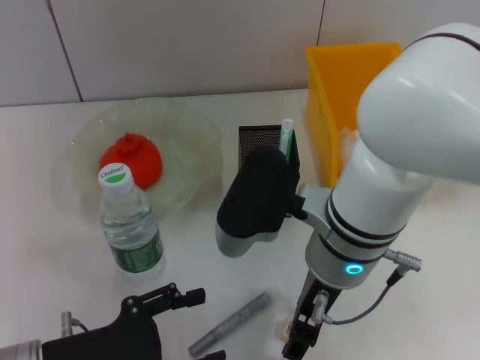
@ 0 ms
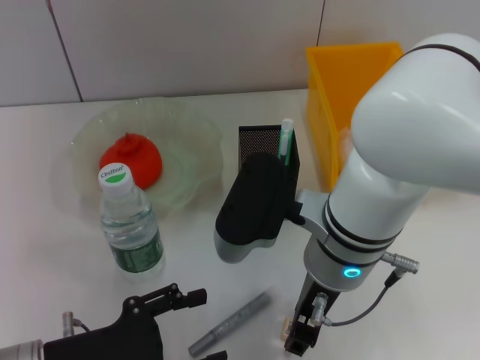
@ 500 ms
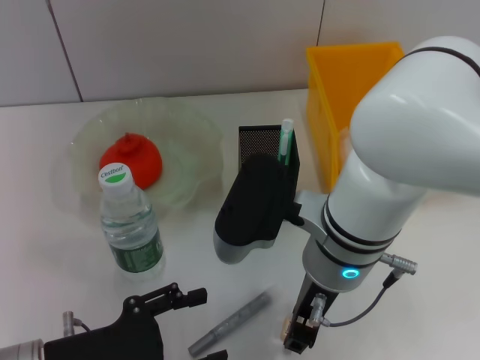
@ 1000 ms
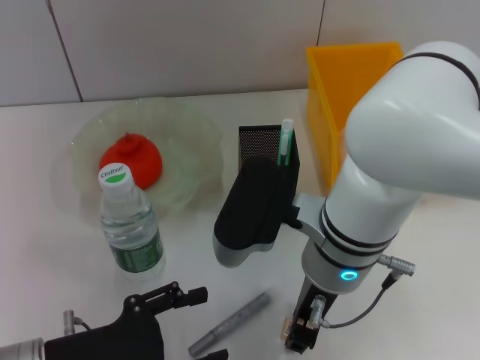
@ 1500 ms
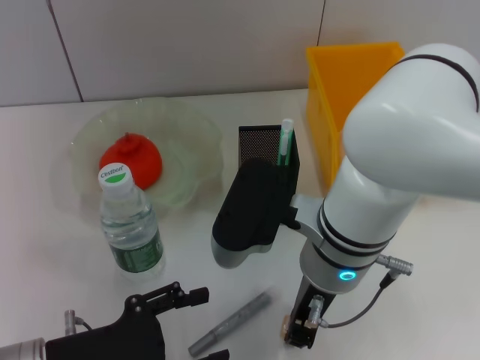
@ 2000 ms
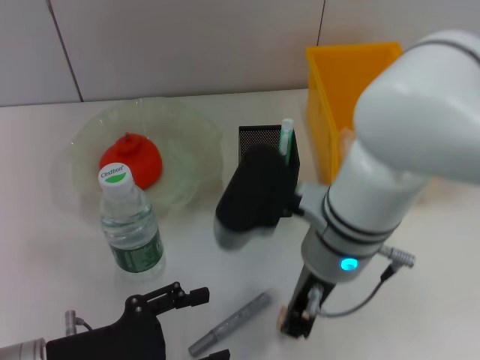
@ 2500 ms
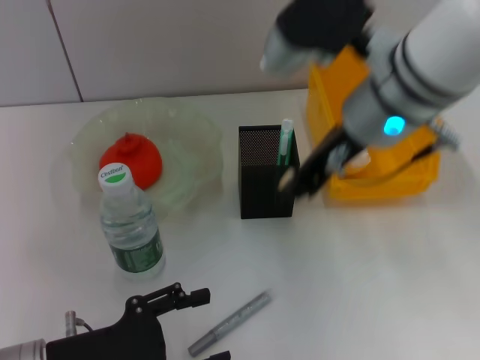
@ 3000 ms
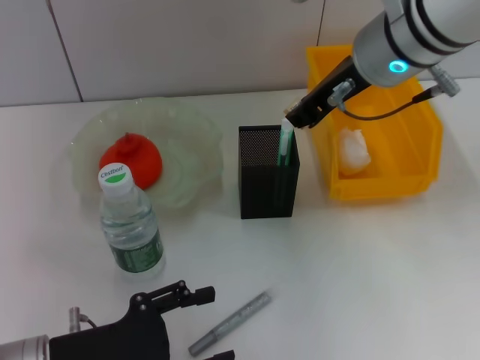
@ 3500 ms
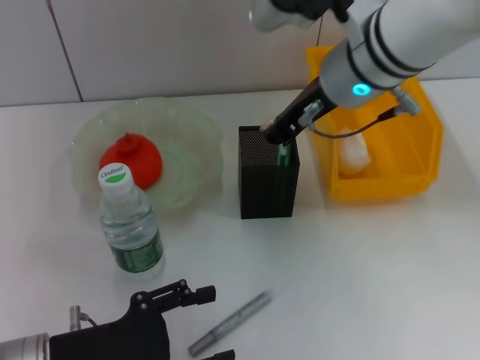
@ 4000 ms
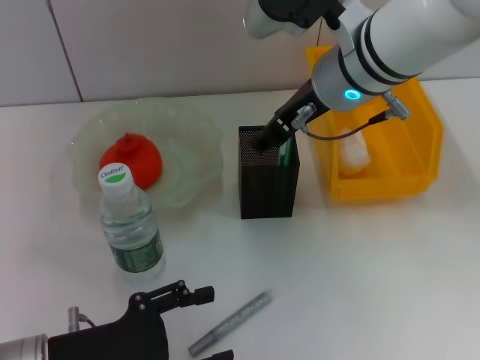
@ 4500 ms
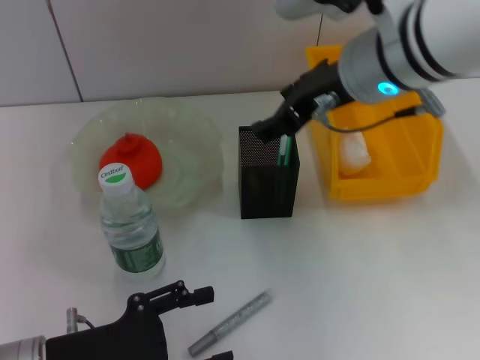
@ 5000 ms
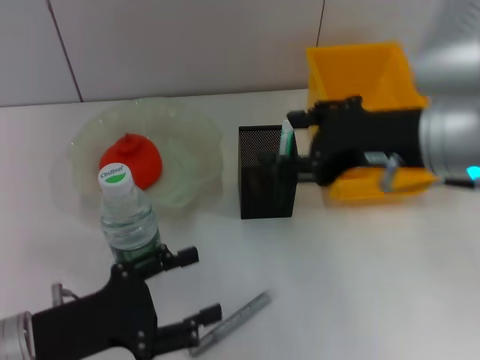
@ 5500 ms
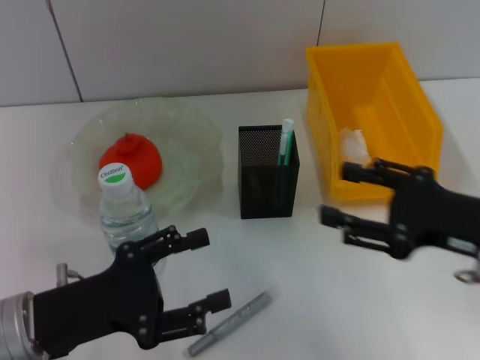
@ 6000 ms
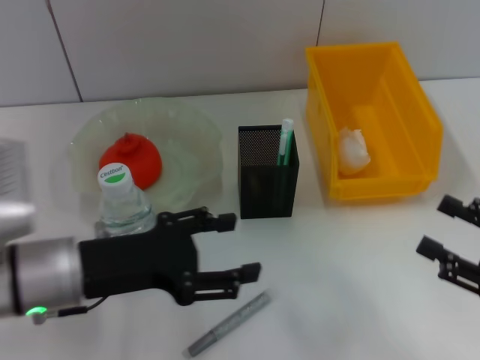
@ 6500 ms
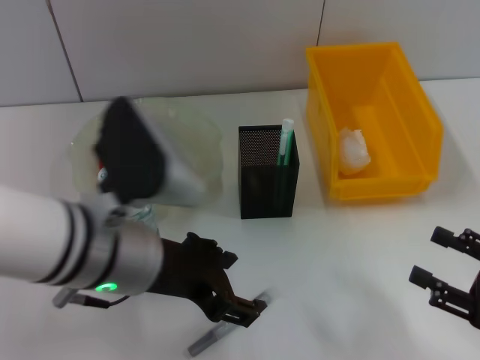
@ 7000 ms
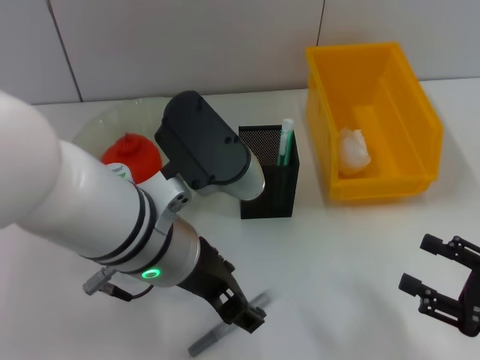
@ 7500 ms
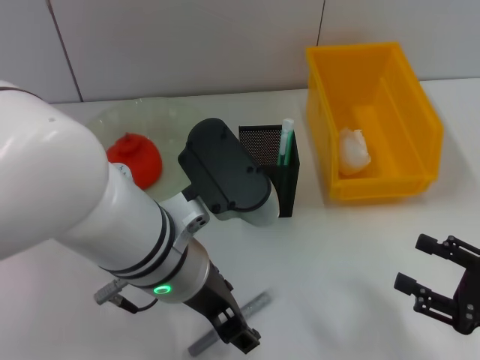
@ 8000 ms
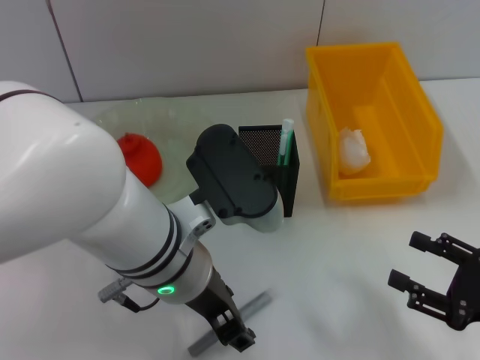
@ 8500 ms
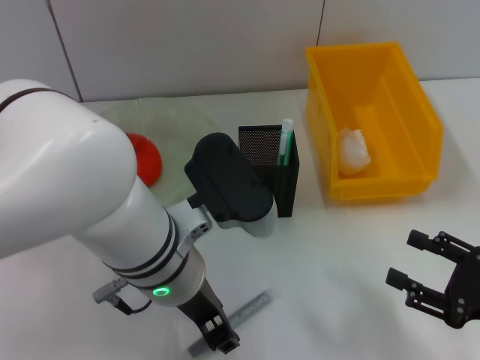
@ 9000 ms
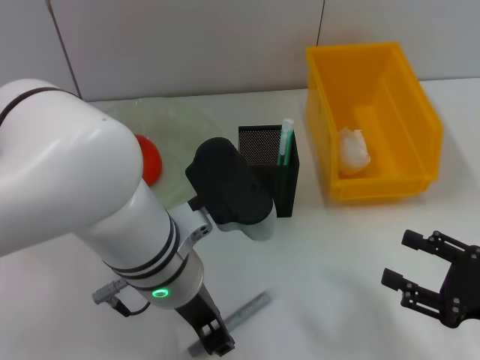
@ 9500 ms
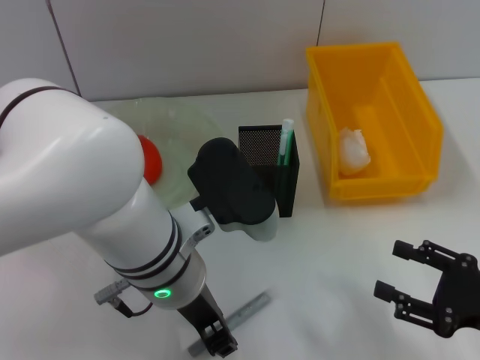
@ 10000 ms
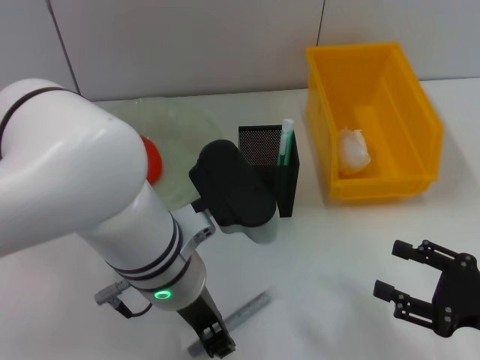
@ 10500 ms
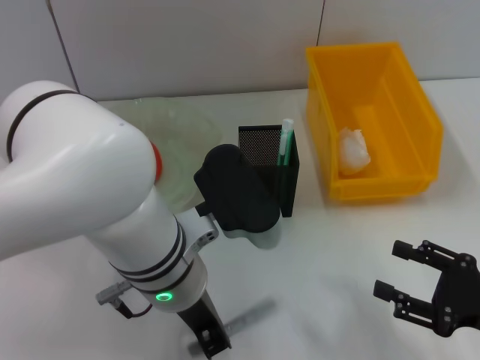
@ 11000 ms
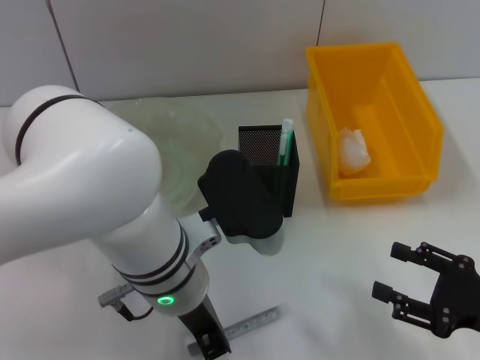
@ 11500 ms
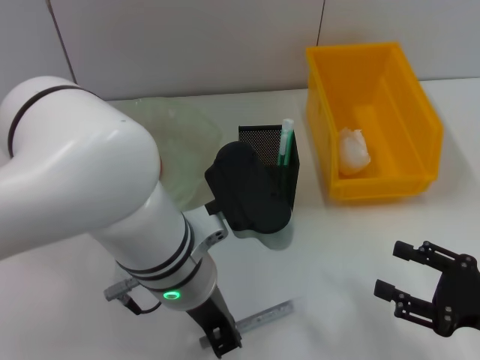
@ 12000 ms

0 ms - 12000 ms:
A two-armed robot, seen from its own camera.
Step, 2000 ms - 4000 ms: Put the eraser into the pen holder with the right hand.
Step, 4500 ms - 10500 ms: Grab the gray glue with the left hand.
0 ms - 2000 ms: The right gripper closes up.
2000 ms - 4000 ms: The right gripper goes roughly 15 cm forward and upward.
4000 ms - 6000 ms: The right gripper is displaced backward, to the right and downward by some 25 cm, and opens its fingers.
6000 ms - 8000 ms: The right gripper travels downward, to the right and backward by roughly 15 cm, while the left gripper goes roughly 20 cm to the right and upward.
8000 ms - 10000 ms: The left gripper closes up.
10000 ms - 12000 ms: The left gripper closes up.

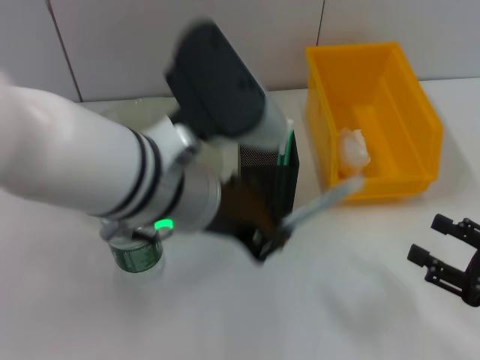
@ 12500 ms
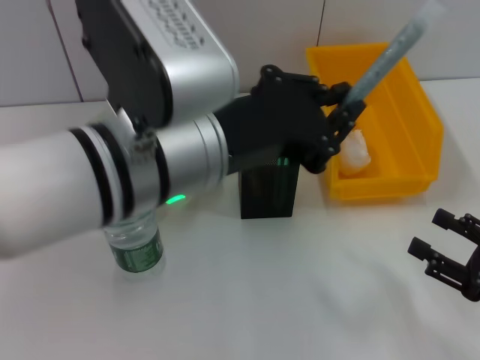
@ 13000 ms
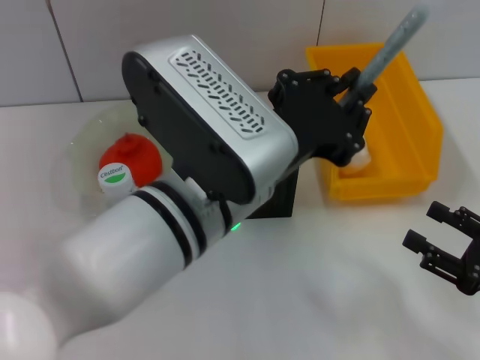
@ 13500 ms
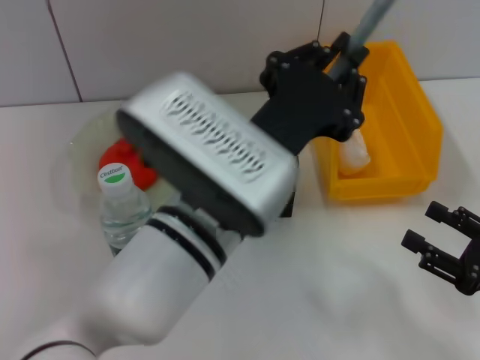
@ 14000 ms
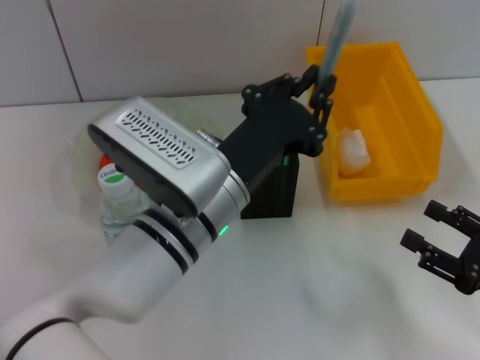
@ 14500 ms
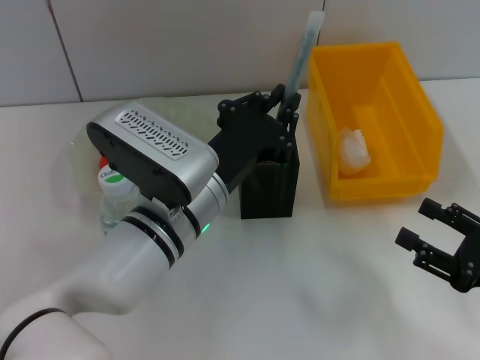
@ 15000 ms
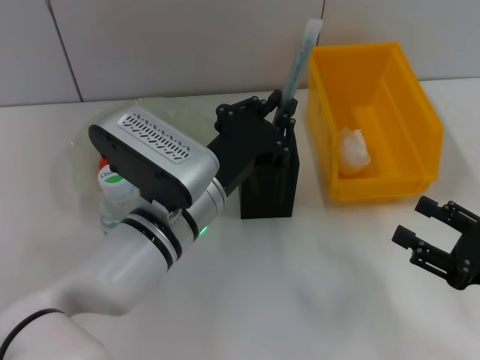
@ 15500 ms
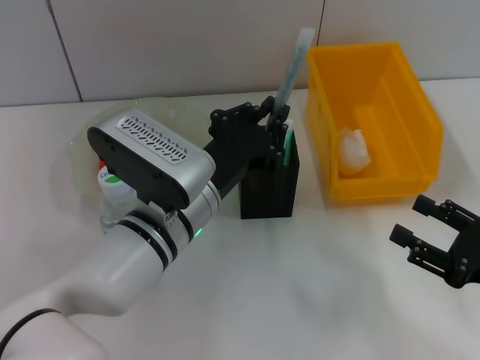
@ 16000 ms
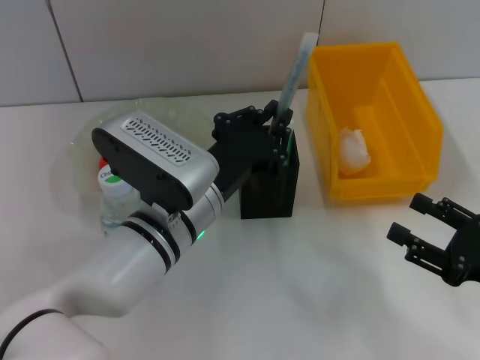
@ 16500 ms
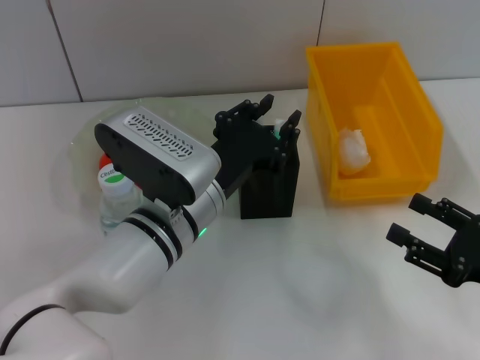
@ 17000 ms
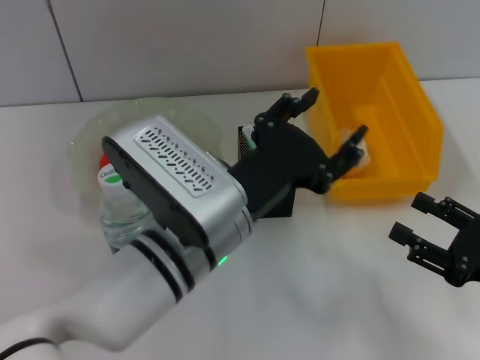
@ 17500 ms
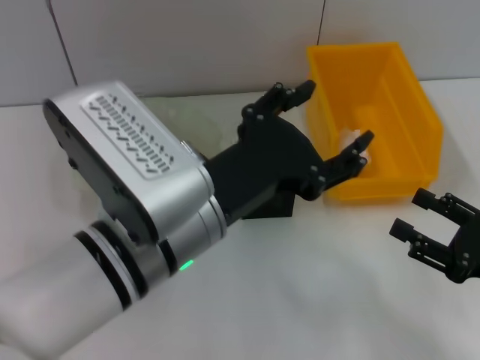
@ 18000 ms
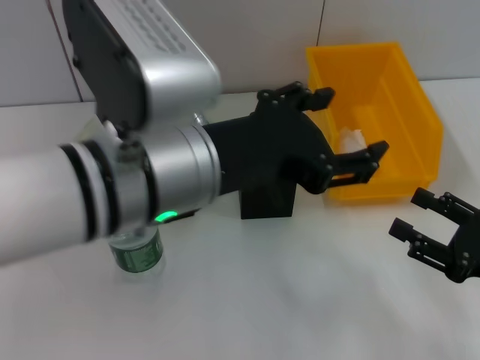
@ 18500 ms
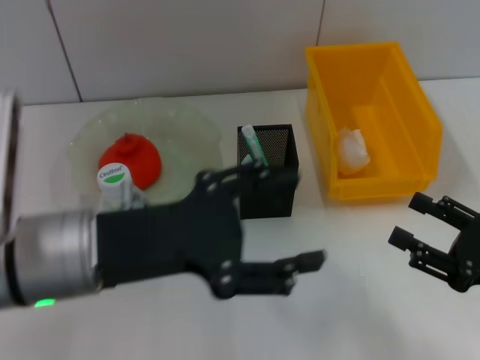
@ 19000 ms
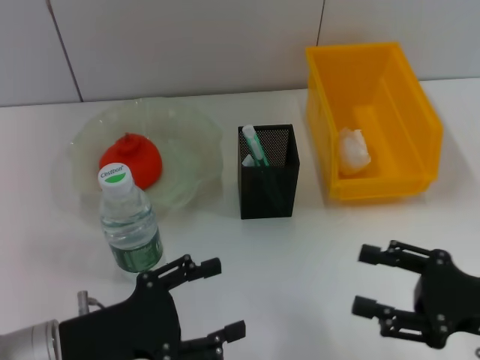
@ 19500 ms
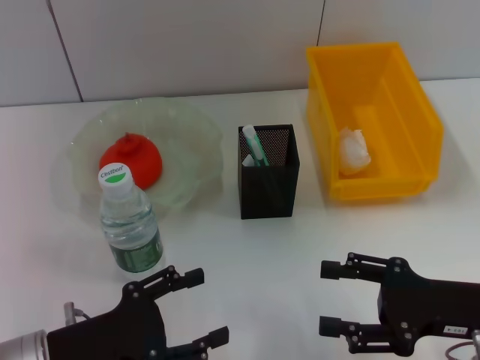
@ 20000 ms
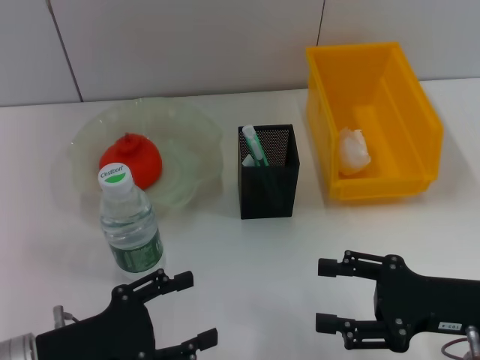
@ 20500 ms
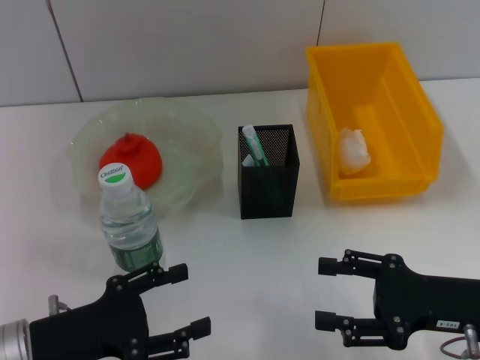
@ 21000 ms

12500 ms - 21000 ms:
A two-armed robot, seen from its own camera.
Step, 12500 ms - 16500 ms: Place the gray glue into the pen holder with the left hand.
12500 ms - 14500 ms: The left gripper heads downward, covering approximately 10 cm.
14500 ms - 16500 ms: The grippers make only small movements.
16500 ms - 19000 ms: The left gripper is displaced to the left, upward and backward by approximately 15 cm, and opens.
19000 ms - 21000 ms: The right gripper travels to the left by approximately 5 cm. The left gripper shifts approximately 15 cm downward and to the left.

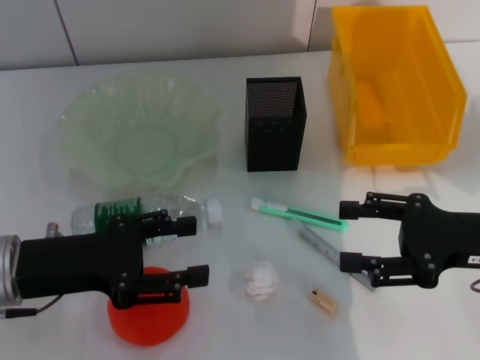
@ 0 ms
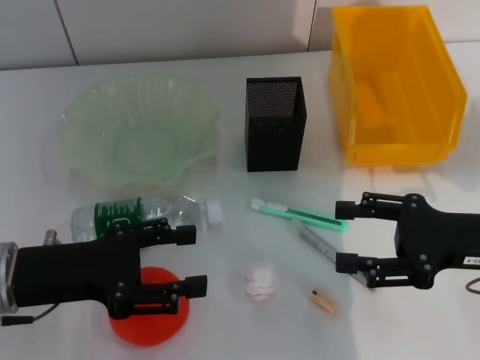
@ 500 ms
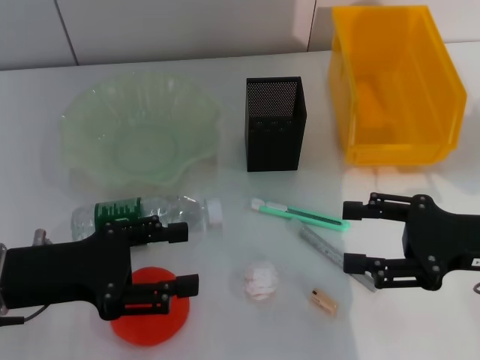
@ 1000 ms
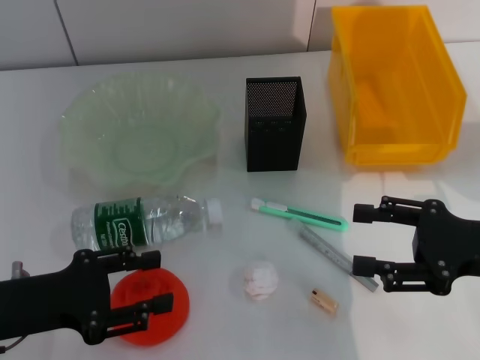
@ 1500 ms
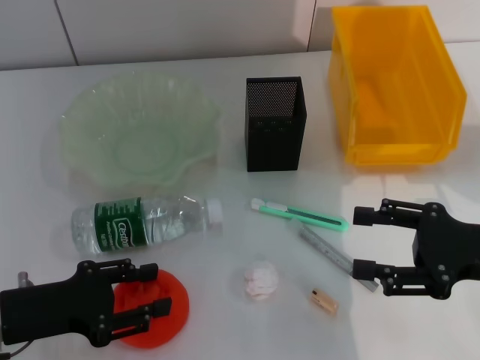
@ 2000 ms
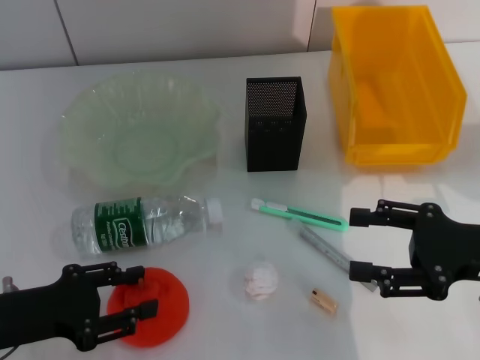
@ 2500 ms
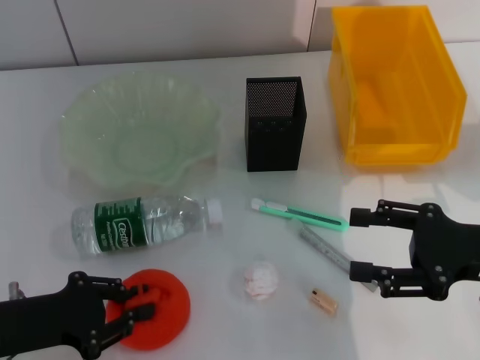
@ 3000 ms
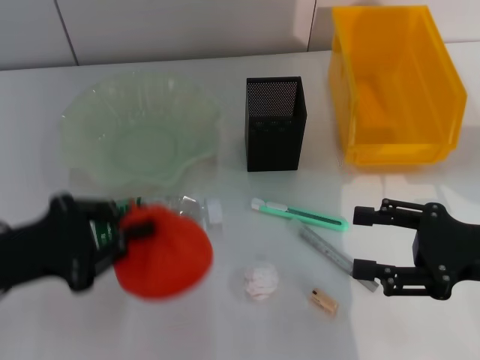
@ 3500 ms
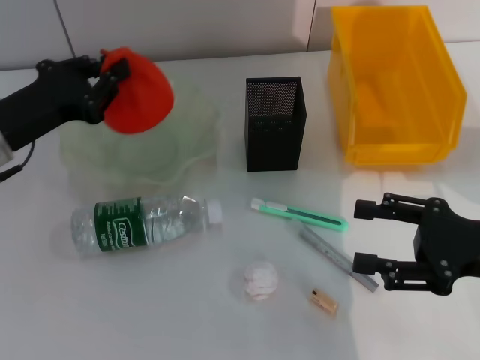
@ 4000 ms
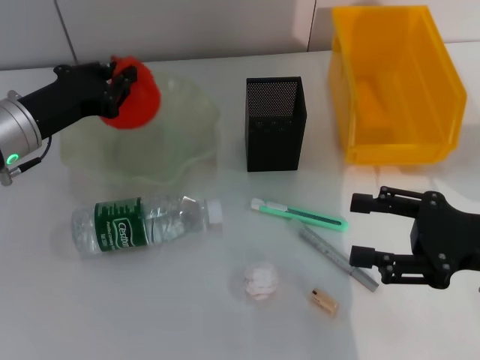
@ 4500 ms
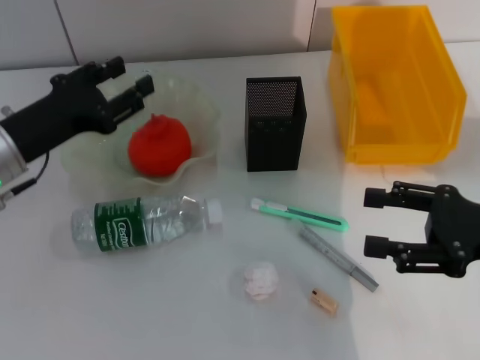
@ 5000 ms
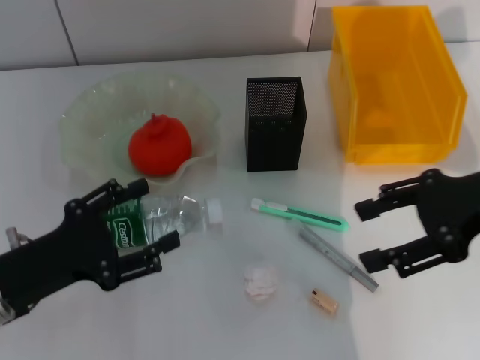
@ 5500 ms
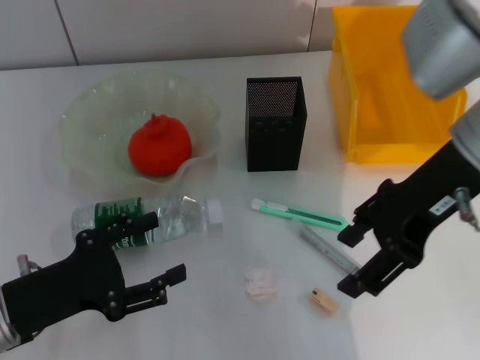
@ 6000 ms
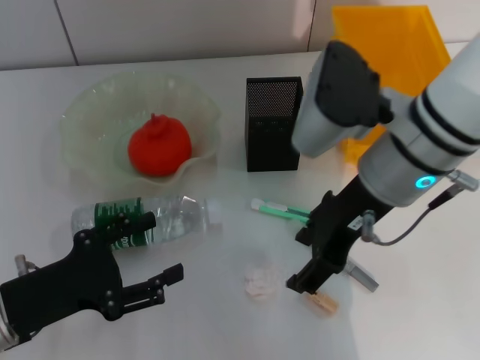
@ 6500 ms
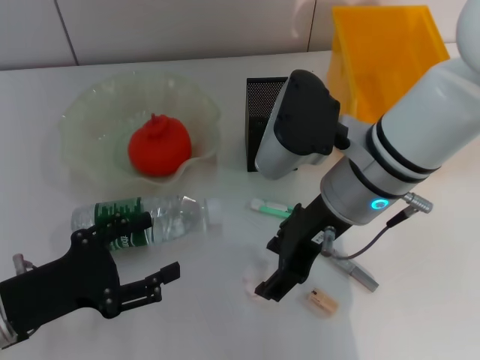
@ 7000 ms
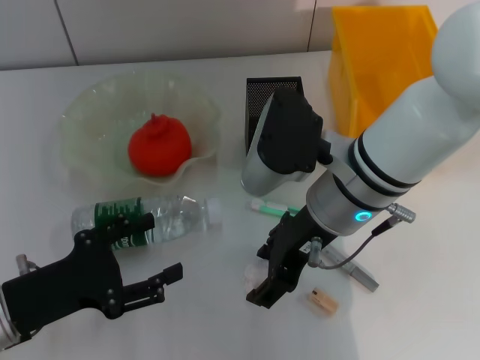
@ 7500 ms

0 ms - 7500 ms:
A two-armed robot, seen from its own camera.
Step, 0 ms - 2500 ms: Grab the orange with the left hand.
Step, 3500 ms - 5000 ms: Place the orange into the fruit bowl with the left hand.
0 ms - 2000 ms: The left gripper shifts by roughly 5 cm.
2000 ms - 4000 ms: The left gripper shifts about 15 cm forward and upward, and closes.
4000 ms - 5500 ms: The right gripper moves upward, some 10 cm; the left gripper goes roughly 15 cm backward and downward, and opens its fingers.
5500 ms - 7500 ms: The right gripper travels to the left by roughly 20 cm.
